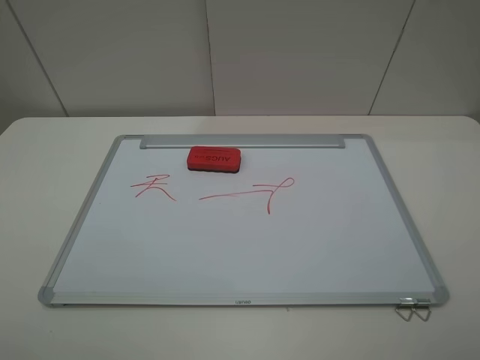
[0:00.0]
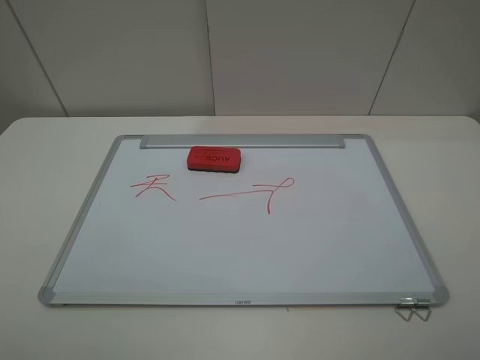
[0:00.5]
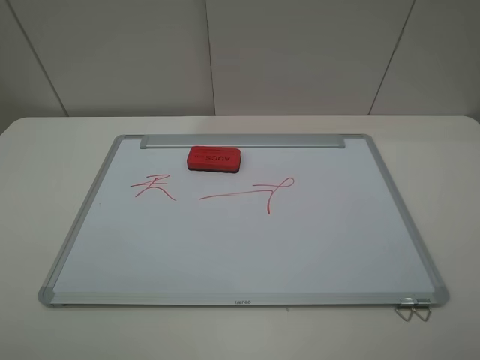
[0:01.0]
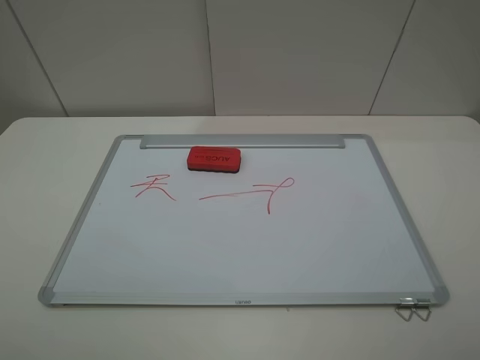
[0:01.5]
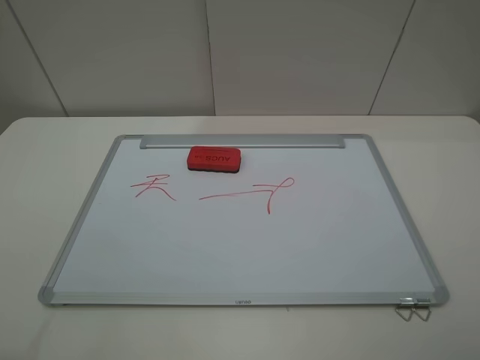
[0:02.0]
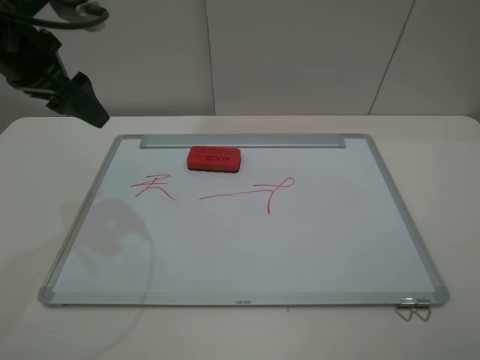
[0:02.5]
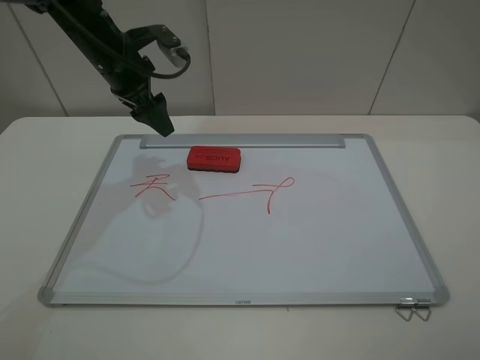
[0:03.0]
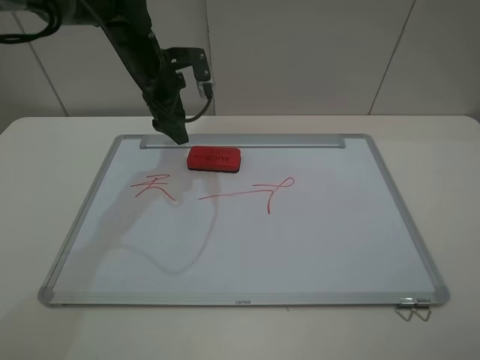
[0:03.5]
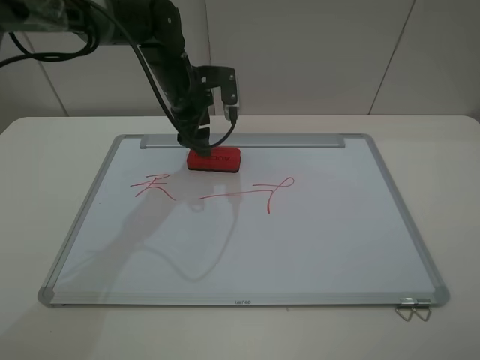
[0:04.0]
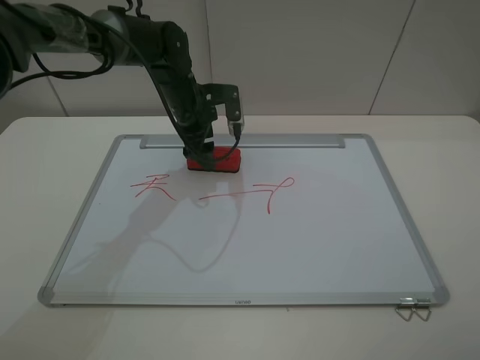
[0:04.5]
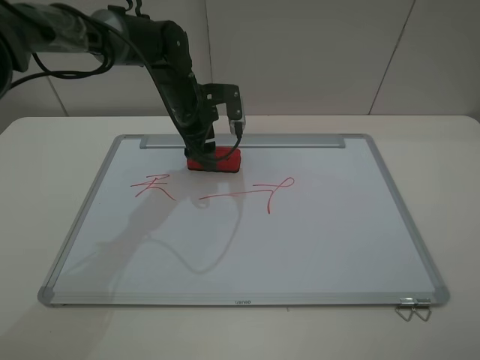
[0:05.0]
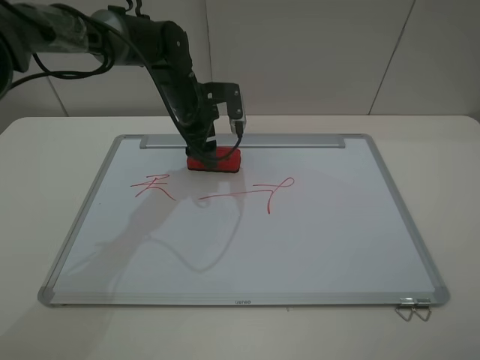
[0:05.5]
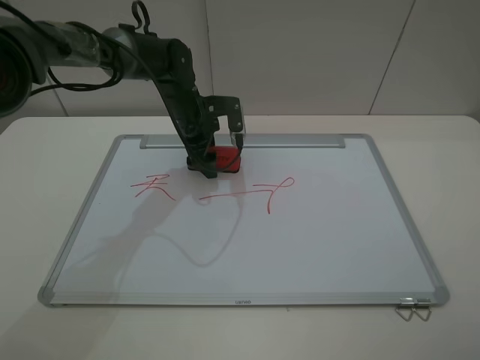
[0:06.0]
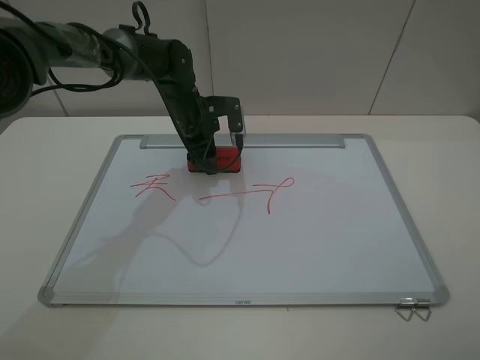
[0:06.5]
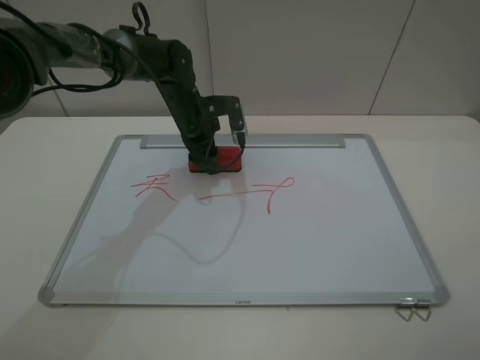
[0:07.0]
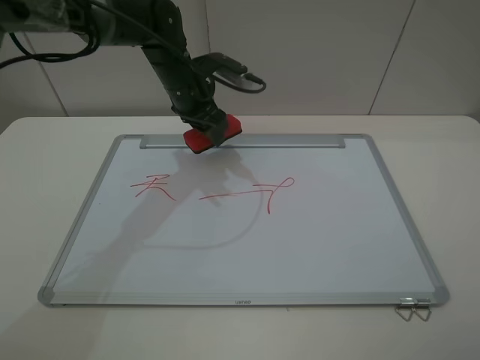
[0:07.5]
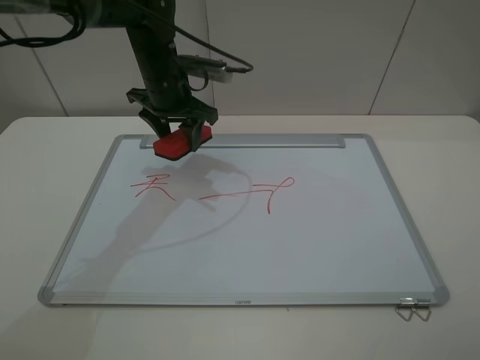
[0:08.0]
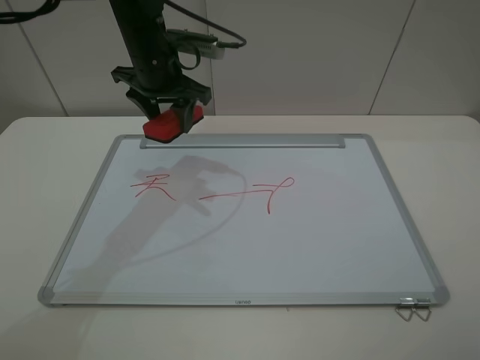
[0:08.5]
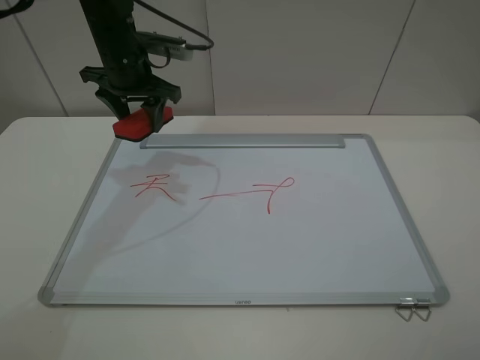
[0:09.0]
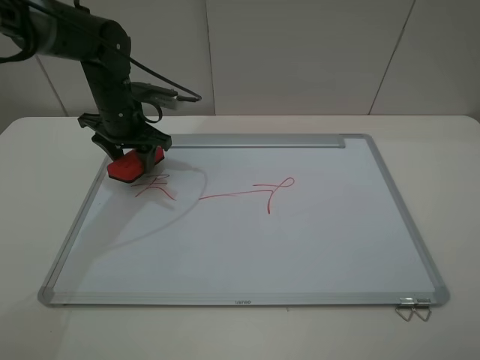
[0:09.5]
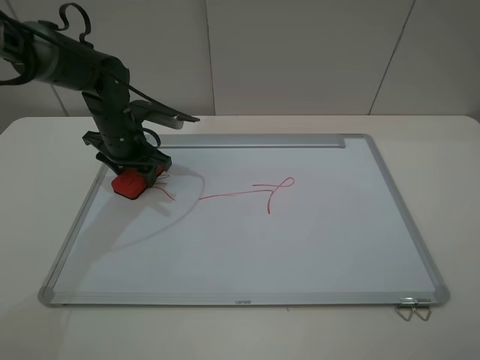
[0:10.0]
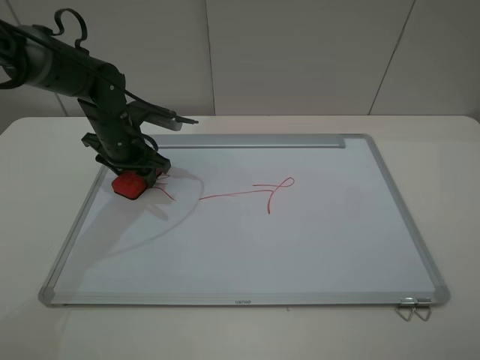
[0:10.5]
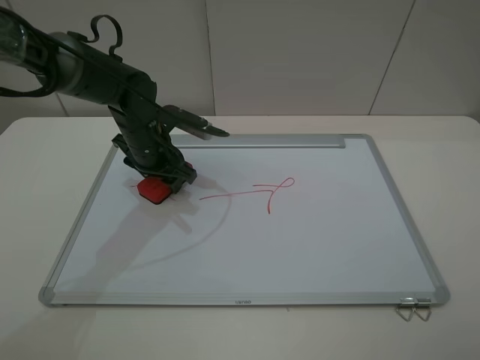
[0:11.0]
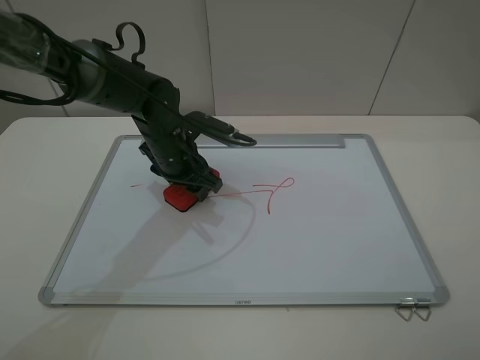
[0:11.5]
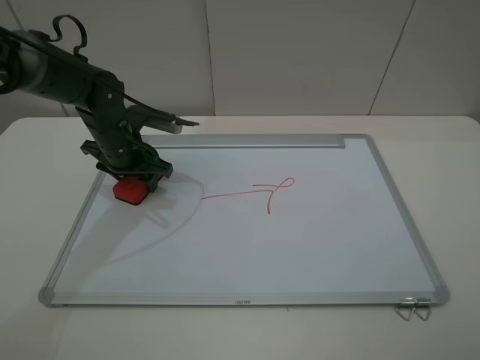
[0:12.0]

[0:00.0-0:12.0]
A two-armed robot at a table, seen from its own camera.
Step, 0.0 to 6.5 s: Grasp the eraser with the left gripper.
2.0 to 4.0 s: The left gripper goes some 40 cm forward, to the right and downward.
4.0 to 6.0 s: The left gripper heads downward, covering roughly 5 cm.
6.0 to 8.0 s: The left gripper moves upward, roughly 10 cm, and closes up.
8.0 to 10.0 s: The left gripper moves to the left and downward, approximately 10 cm.
10.0 to 12.0 s: The left gripper travels to the right and back again, approximately 10 cm each way.

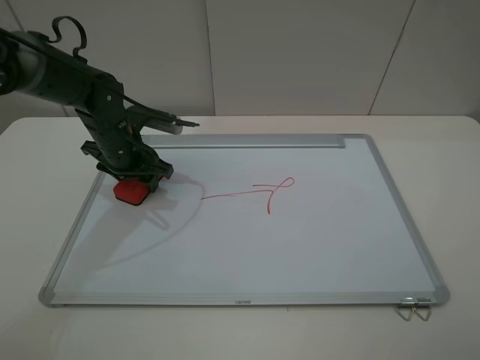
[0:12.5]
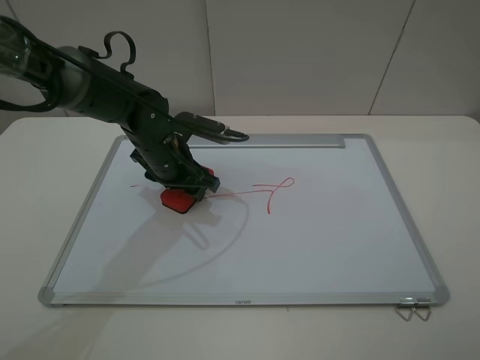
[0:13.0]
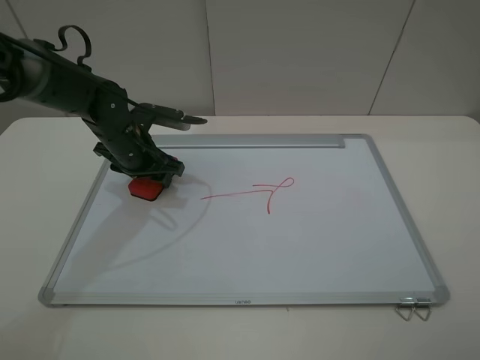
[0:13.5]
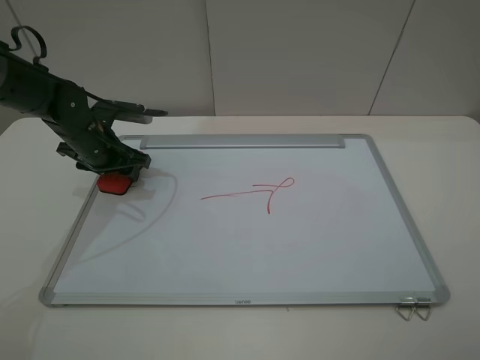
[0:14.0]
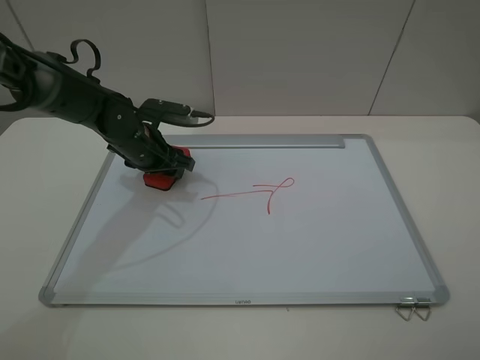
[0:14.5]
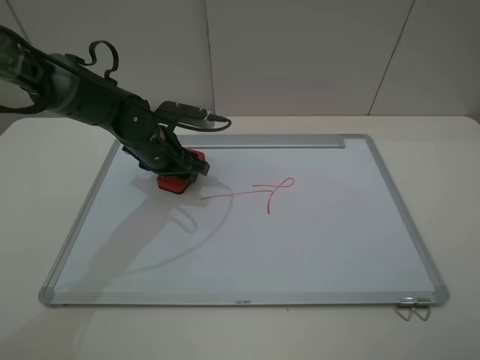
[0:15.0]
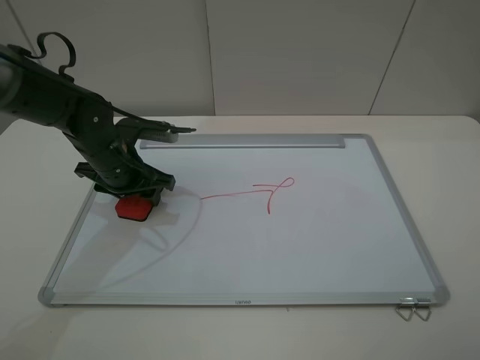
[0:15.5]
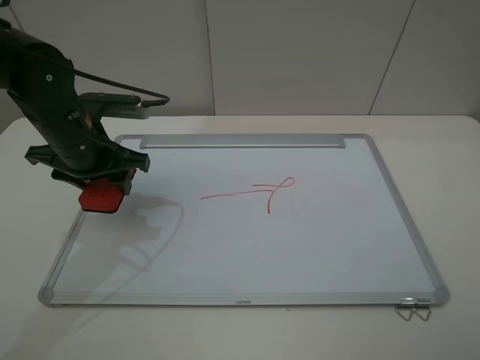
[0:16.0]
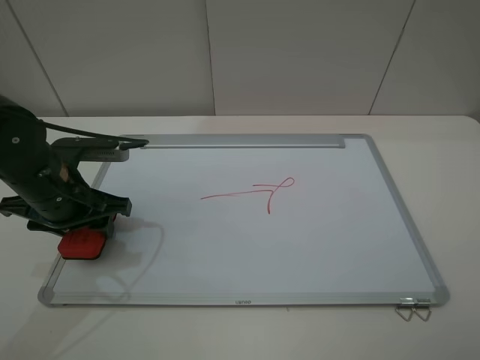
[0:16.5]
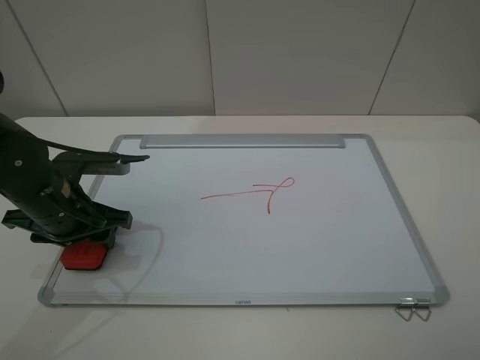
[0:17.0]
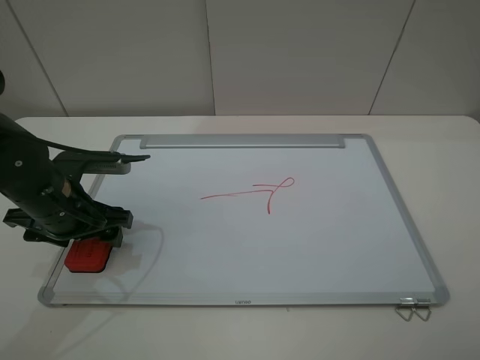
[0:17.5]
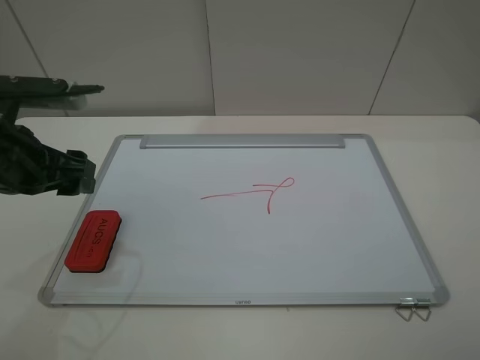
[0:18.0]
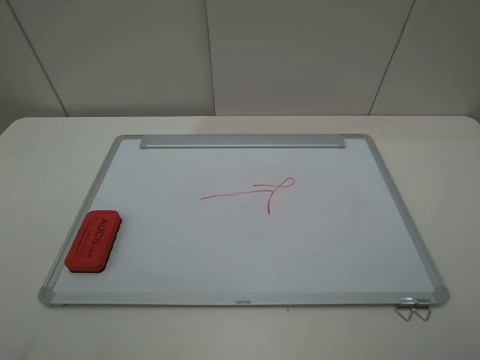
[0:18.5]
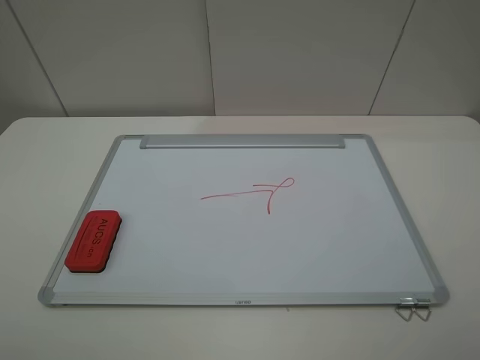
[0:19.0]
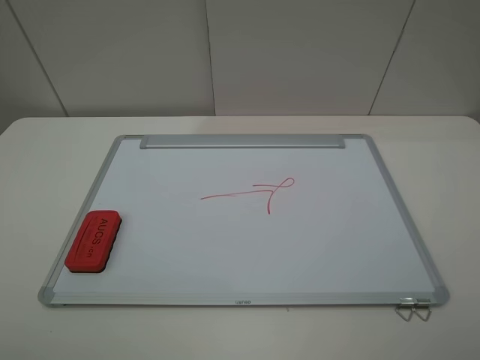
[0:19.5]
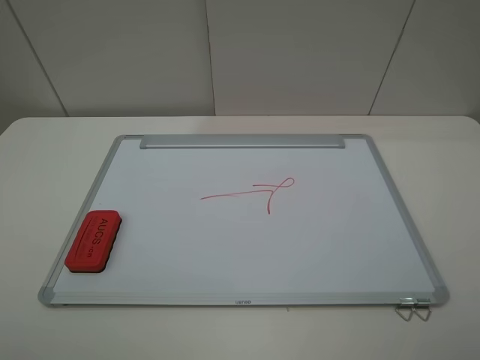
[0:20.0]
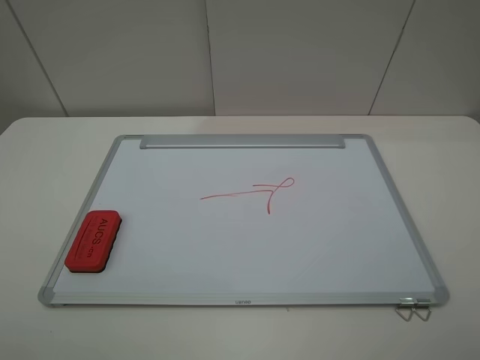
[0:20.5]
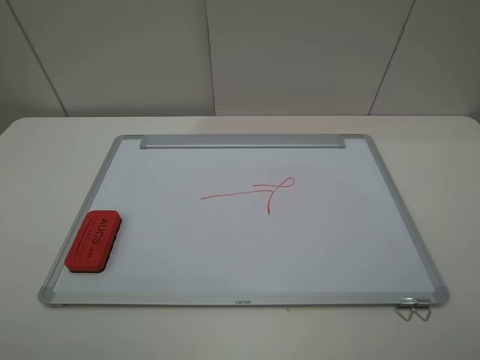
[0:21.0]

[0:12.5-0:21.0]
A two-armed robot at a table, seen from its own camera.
Step, 12.5 to 15.5 s: Grasp the eraser and wipe the blackboard with the left gripper.
Step, 16.0 to 17.5 s: Place the eraser with the left gripper.
12.5 to 14.5 s: The left gripper swings left and right, some 15 cm each way, with 2 reversals.
14.5 to 16.5 s: The left gripper is displaced backward, to the left and upward by approximately 15 cm.
16.5 to 19.0 s: The left gripper moves backward, upward and to the left, some 30 cm, and opens up.

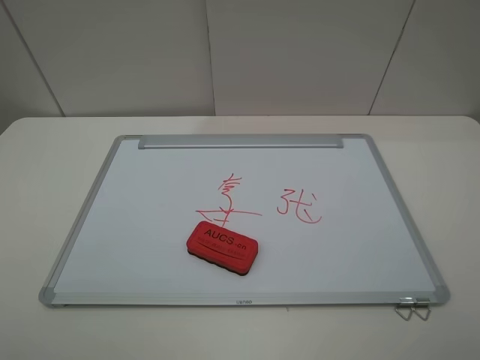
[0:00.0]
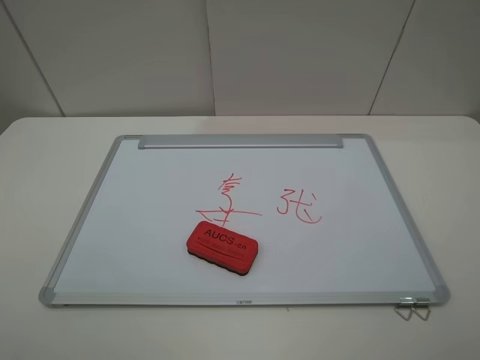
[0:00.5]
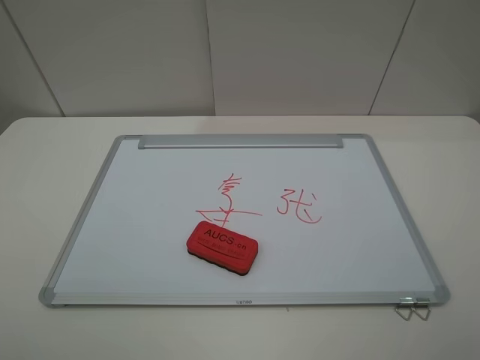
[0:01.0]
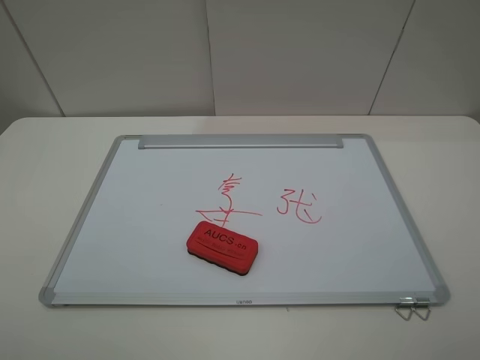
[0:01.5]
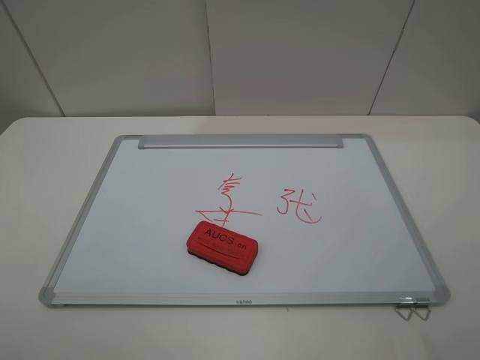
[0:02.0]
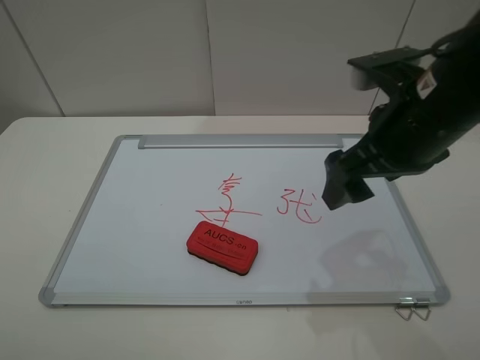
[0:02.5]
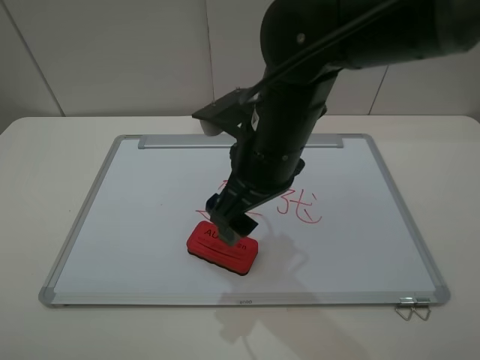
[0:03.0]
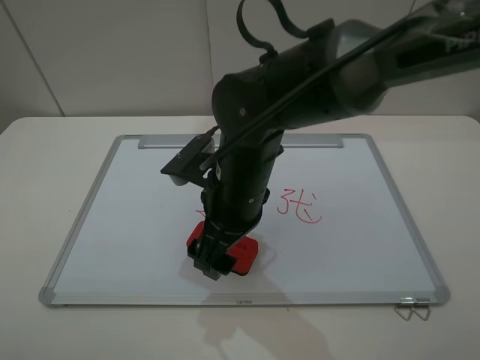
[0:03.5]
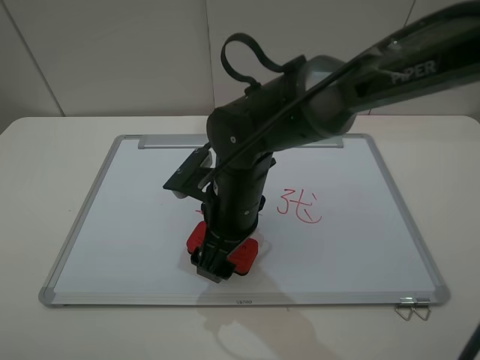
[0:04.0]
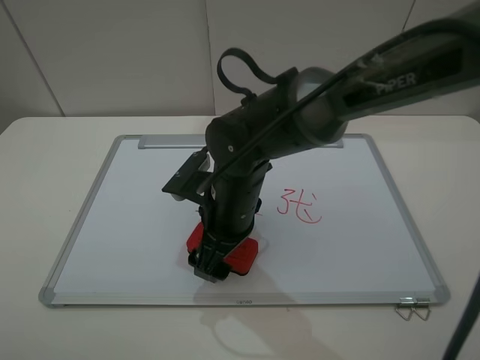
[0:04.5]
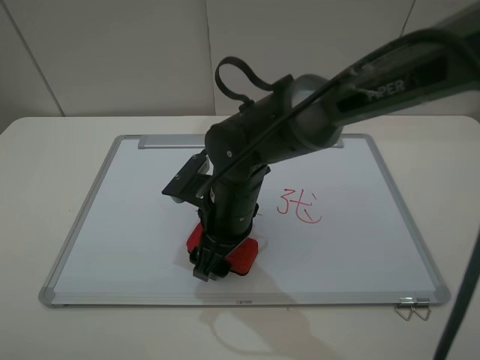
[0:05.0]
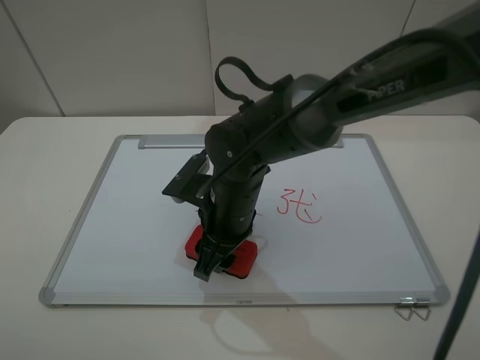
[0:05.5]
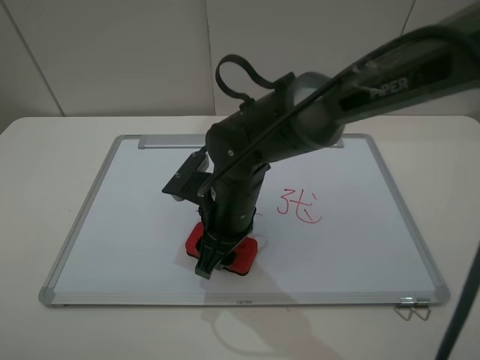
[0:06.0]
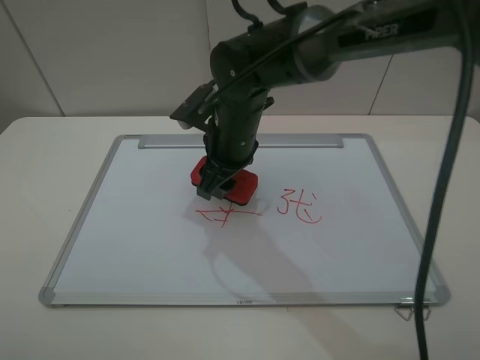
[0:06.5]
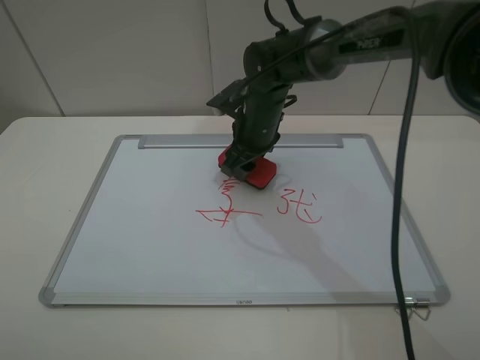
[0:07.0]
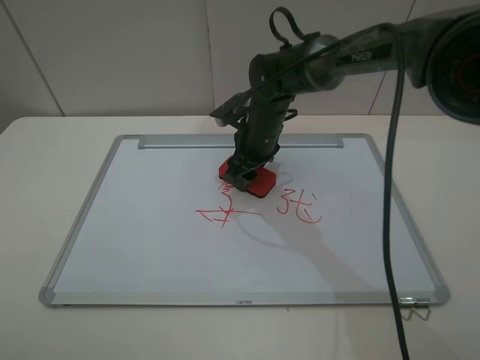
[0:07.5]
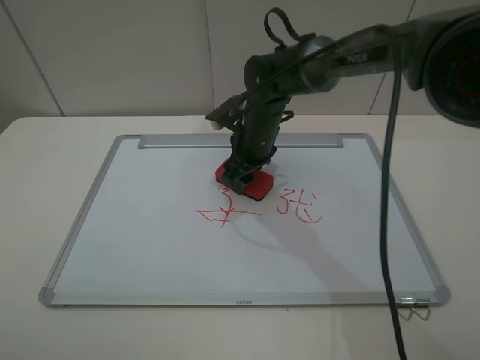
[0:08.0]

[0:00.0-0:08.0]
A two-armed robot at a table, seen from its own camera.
Step, 0.0 to 5.0 s: Grasp the eraser with the right gripper.
2.0 to 4.0 s: The right gripper heads to the left, downward and forward, covering approximately 35 cm.
4.0 to 6.0 s: The right gripper closes.
6.0 to 8.0 s: The right gripper heads forward, covering approximately 15 cm.
